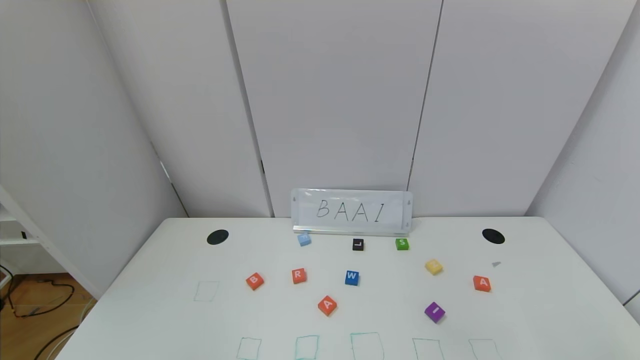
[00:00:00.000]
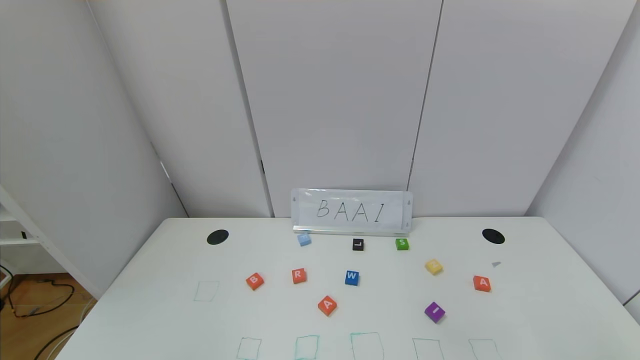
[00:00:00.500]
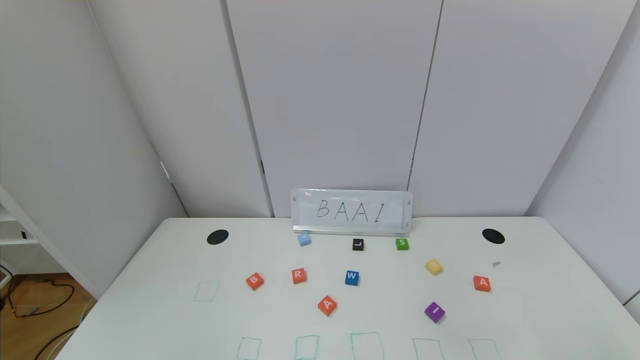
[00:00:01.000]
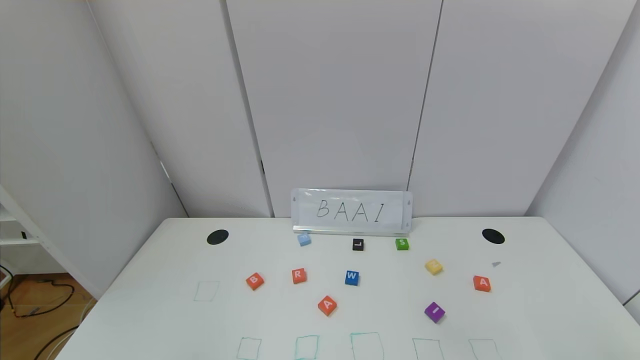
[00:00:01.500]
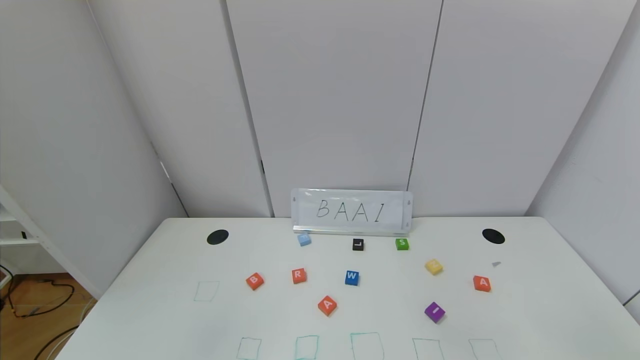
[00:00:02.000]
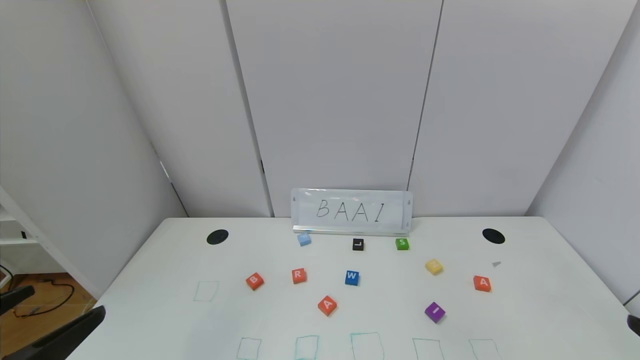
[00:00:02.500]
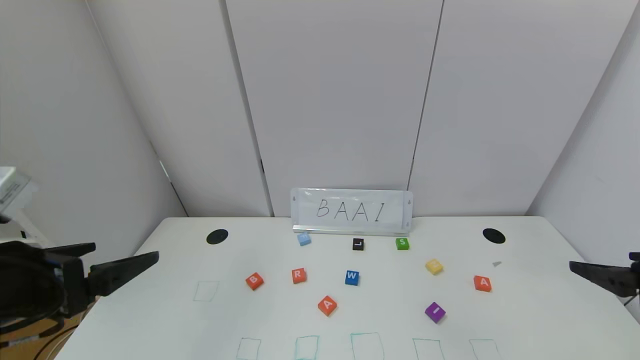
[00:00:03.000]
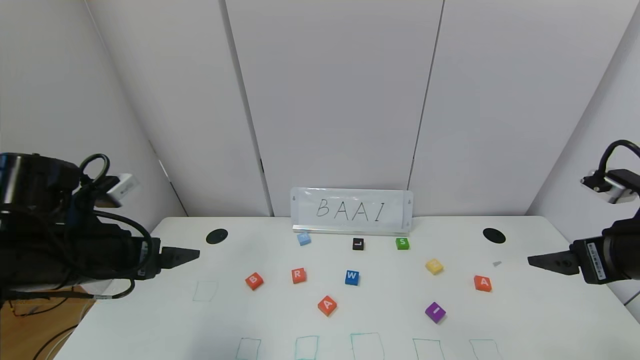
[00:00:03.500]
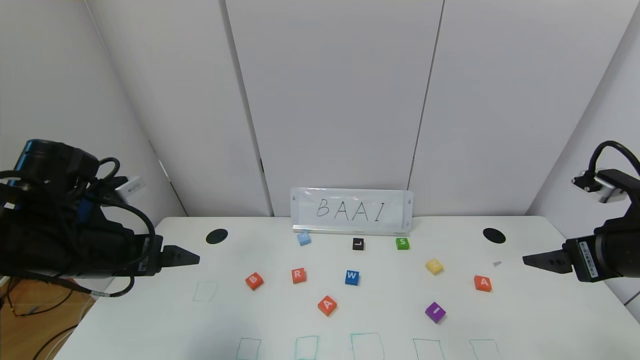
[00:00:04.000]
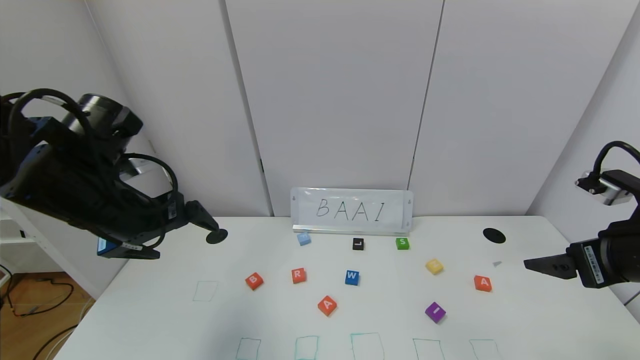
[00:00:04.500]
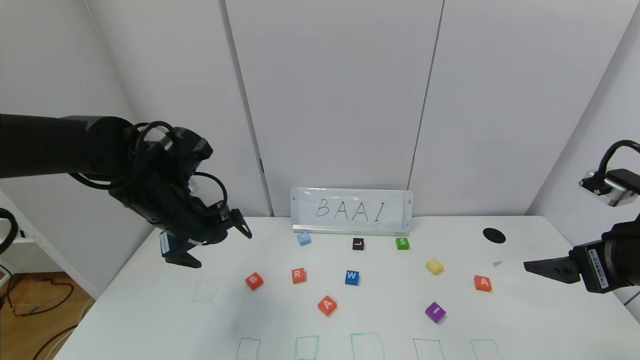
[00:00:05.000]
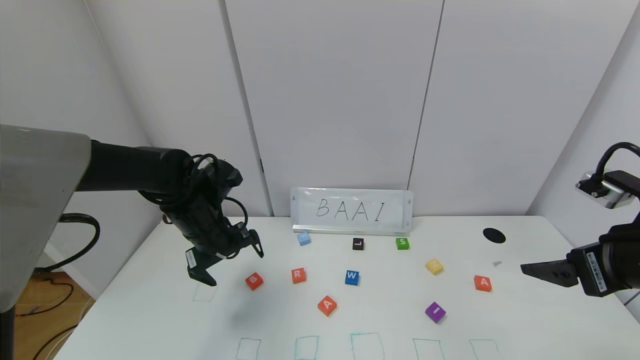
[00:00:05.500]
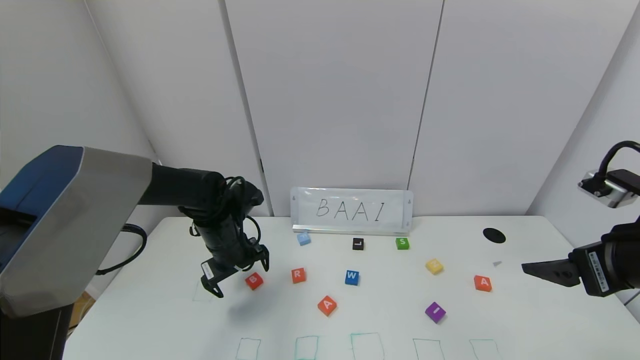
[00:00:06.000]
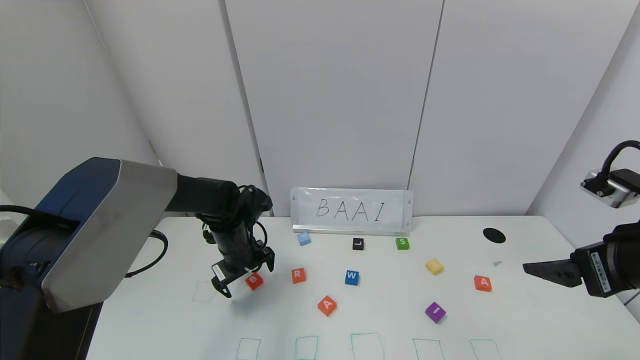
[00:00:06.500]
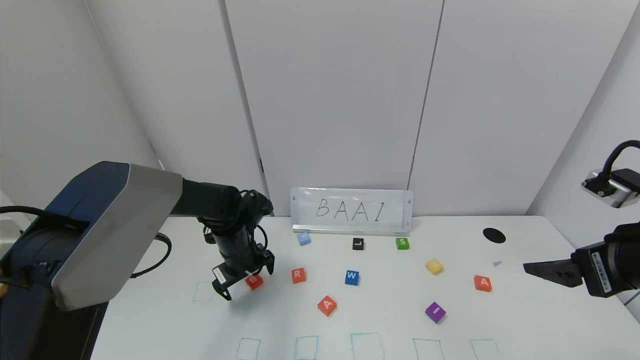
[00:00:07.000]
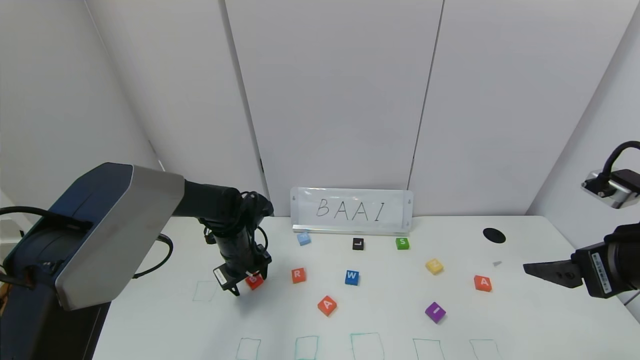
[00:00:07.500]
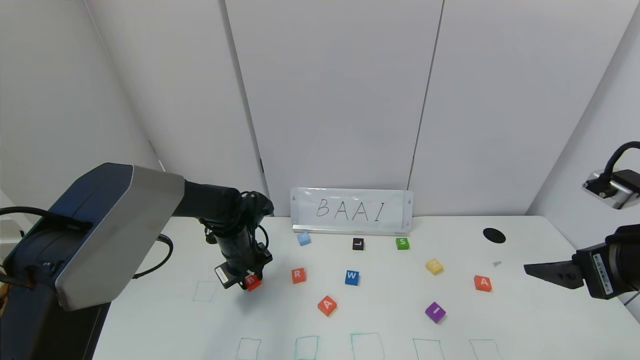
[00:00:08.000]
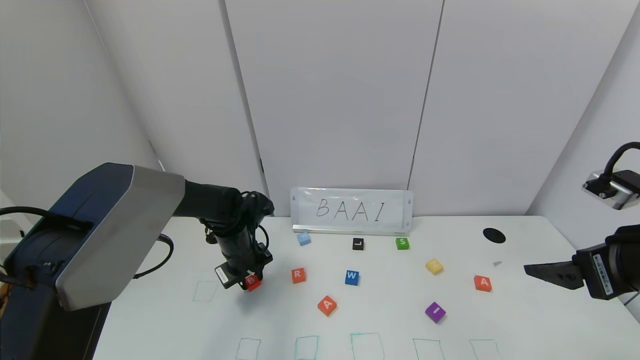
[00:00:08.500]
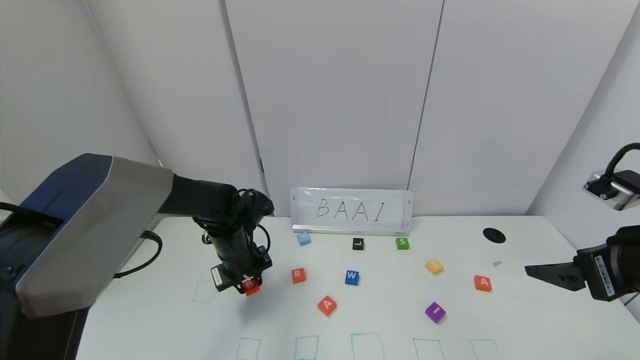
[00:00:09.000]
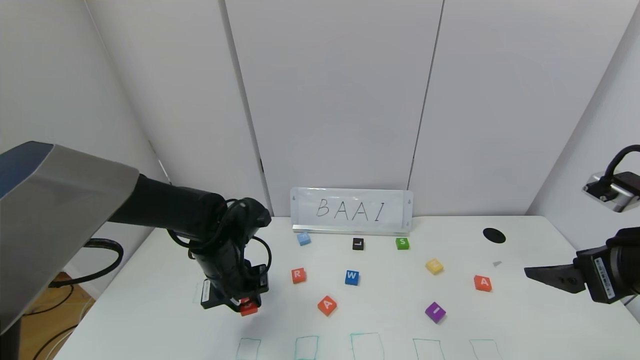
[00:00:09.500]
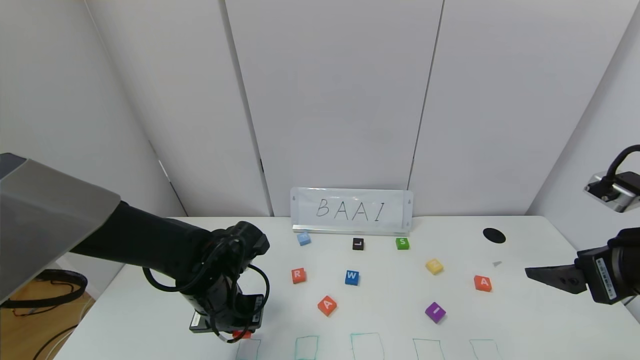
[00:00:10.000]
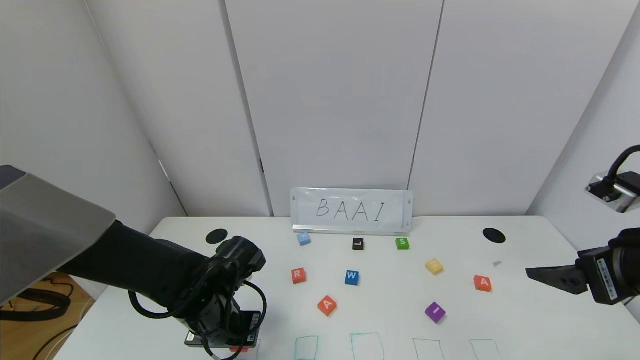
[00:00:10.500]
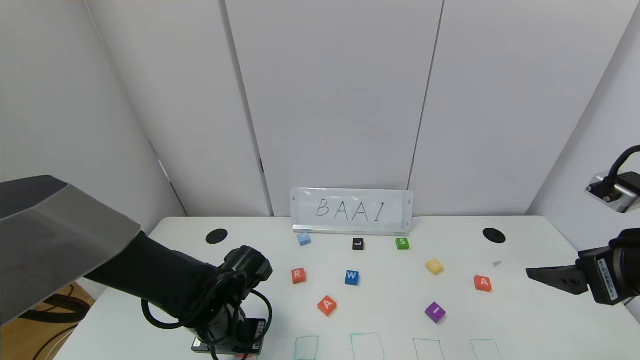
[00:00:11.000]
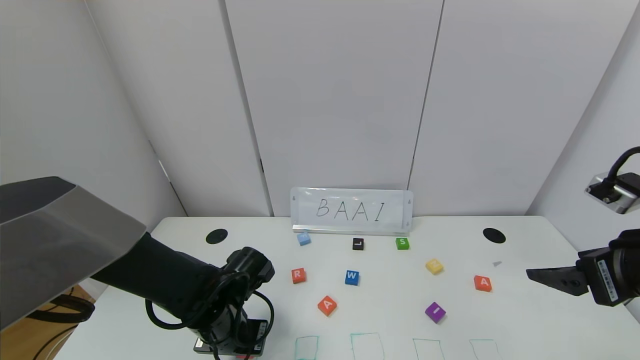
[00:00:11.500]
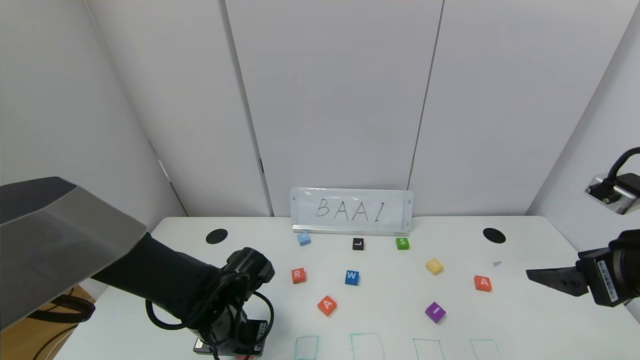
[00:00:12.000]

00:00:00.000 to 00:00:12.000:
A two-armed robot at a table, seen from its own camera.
Task of the whole recording: use the gripper to find blocks with the letters b, a, a, and i on the table and arrange them into BAAI, then find r and N and turn the arranged baai into brian.
00:00:02.000 to 00:00:04.000: The two grippers go roughly 25 cm forward.
00:00:04.000 to 00:00:06.000: The left gripper shifts about 20 cm forward, downward and to the right.
00:00:06.000 to 00:00:08.000: The left gripper closes.
00:00:08.000 to 00:00:10.000: The left gripper moves backward, approximately 15 cm.
00:00:10.000 to 00:00:12.000: There are only small adjustments of the grippers.

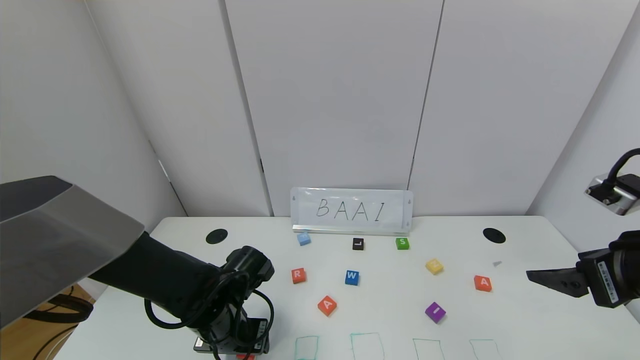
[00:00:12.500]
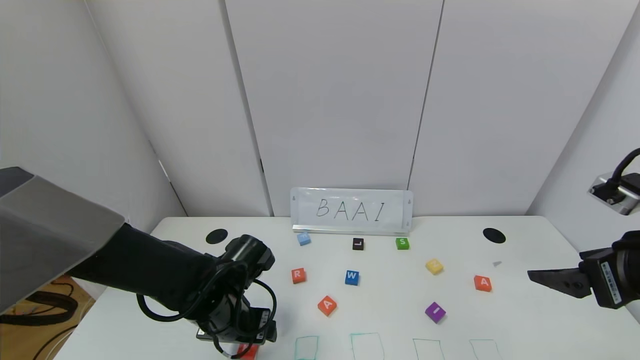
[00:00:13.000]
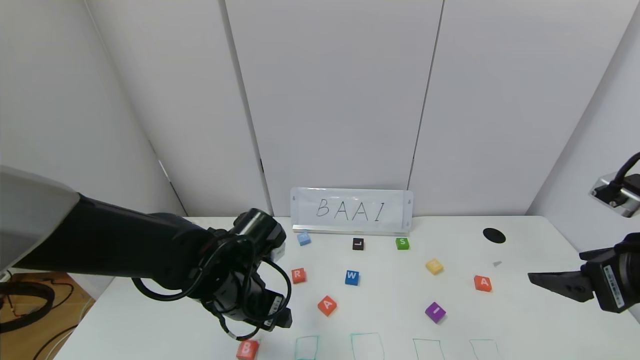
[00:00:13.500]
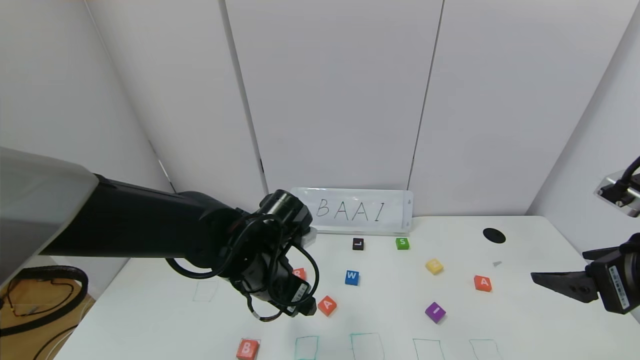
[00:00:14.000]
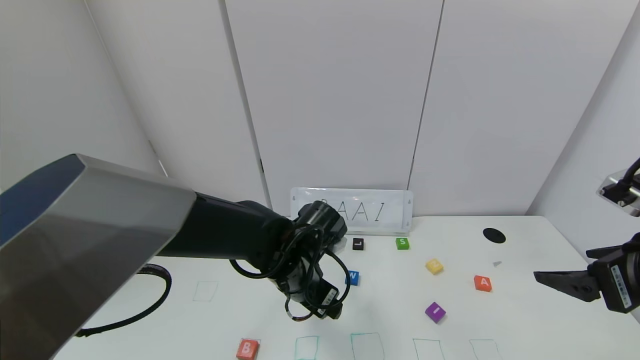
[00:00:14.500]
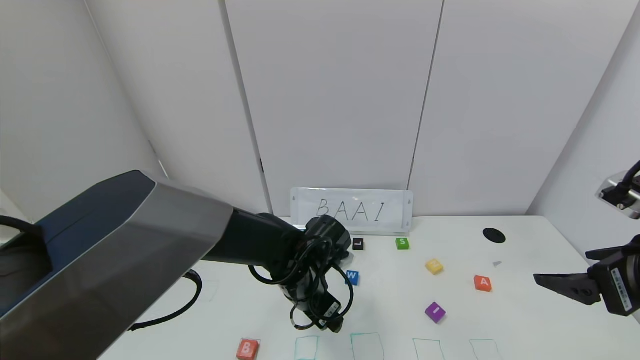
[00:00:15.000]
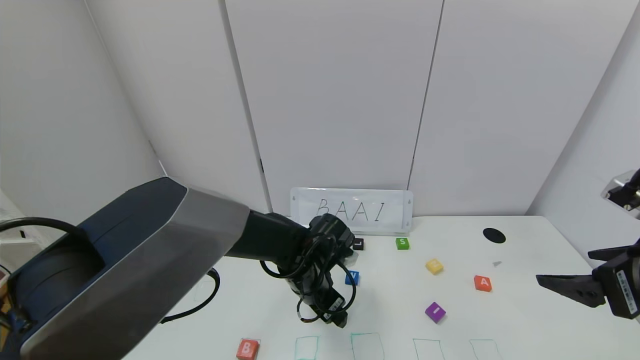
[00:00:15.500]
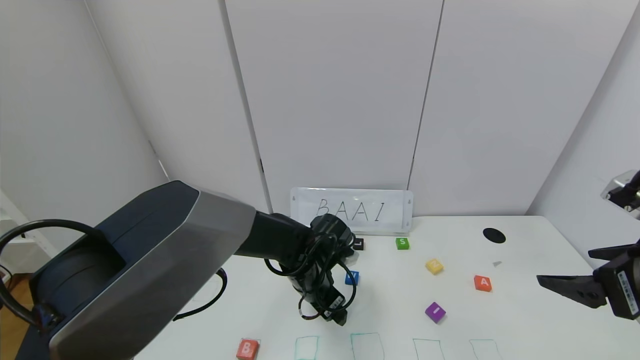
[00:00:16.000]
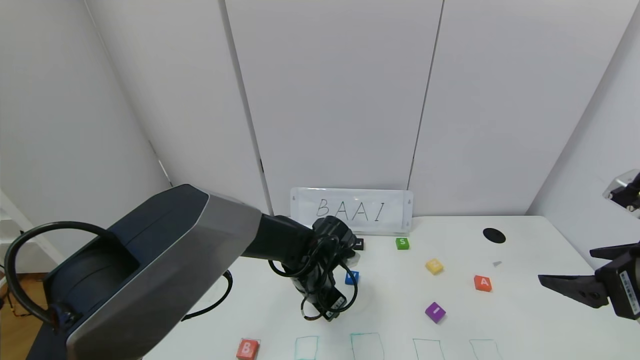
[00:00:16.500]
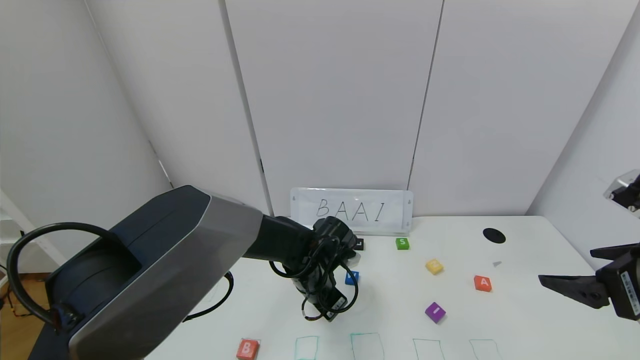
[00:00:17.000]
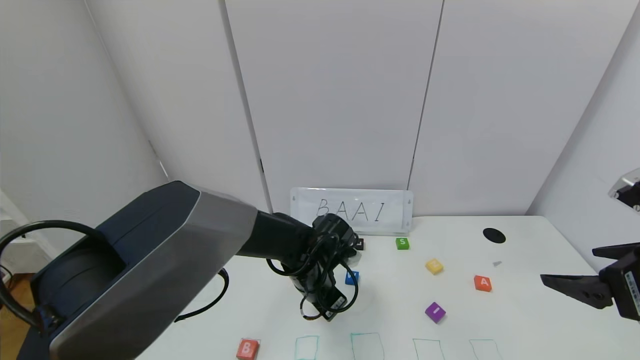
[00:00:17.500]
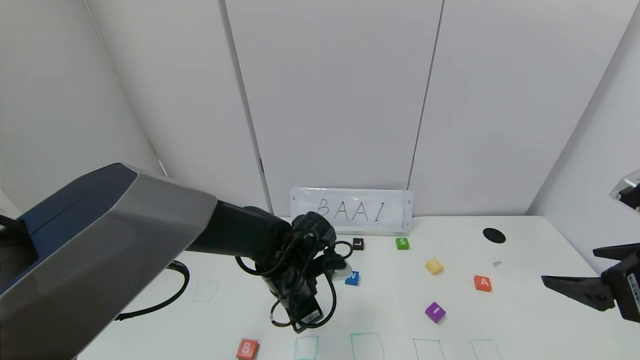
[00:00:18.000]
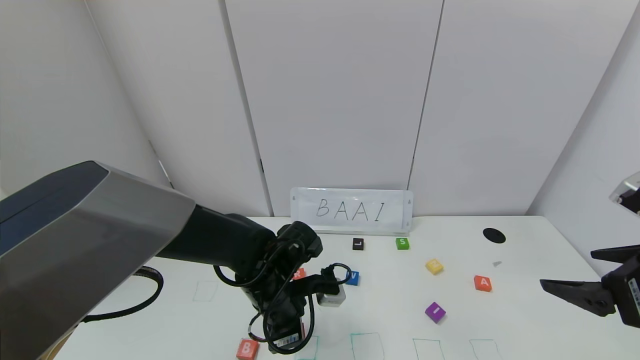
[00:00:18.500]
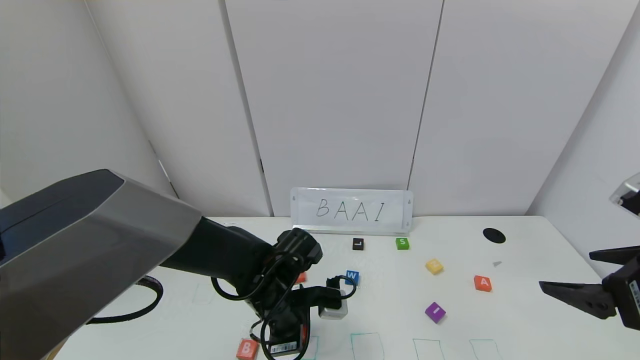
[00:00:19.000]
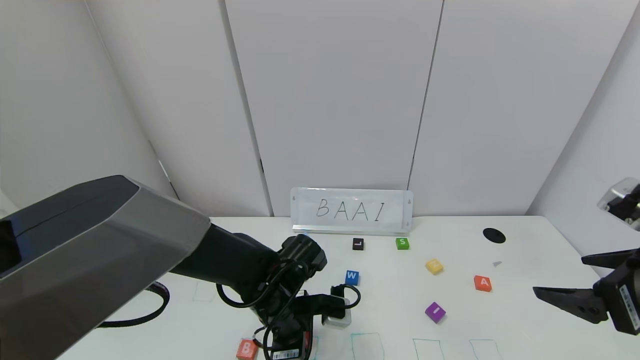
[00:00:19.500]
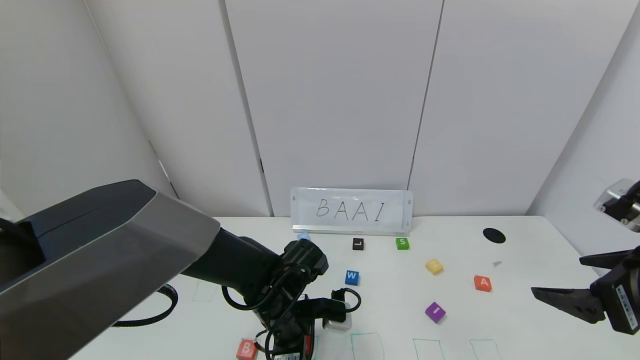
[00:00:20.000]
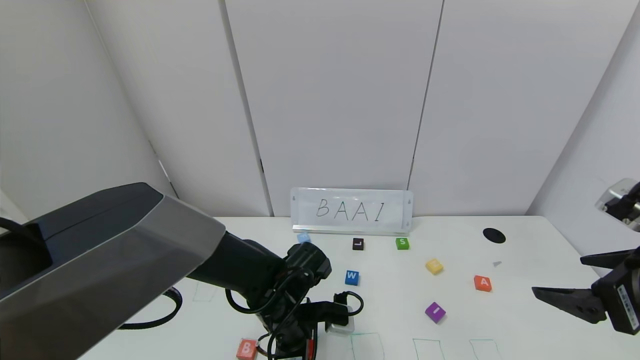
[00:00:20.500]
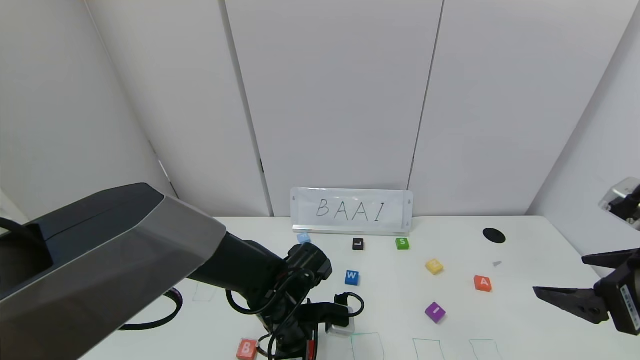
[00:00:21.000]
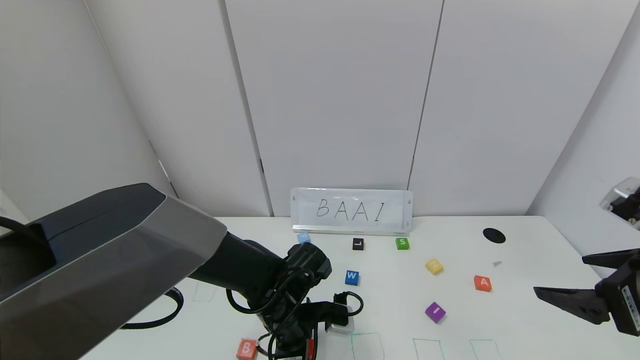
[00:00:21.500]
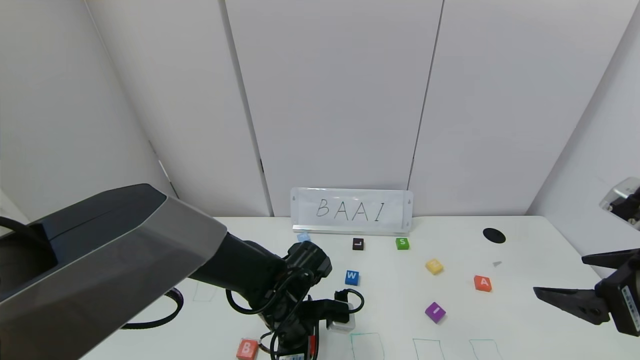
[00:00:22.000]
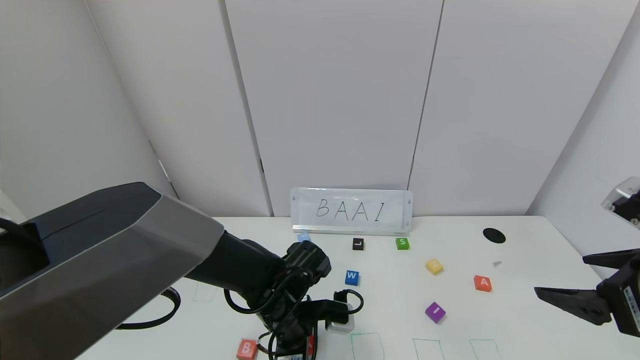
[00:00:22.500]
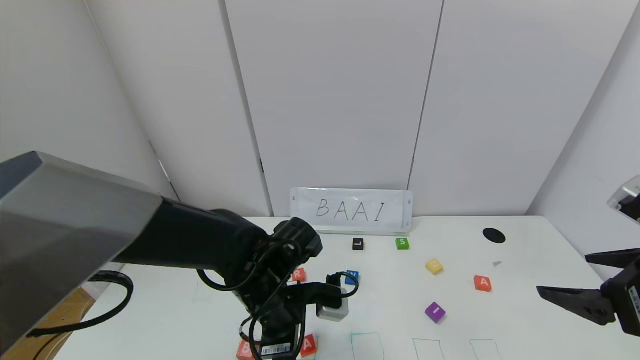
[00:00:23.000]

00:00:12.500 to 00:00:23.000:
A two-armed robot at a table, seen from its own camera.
Task of the whole recording: use the gripper to find blocks with the letters b, a, a, and i on the table and arrange them into BAAI, then find r and N and turn the arranged baai into brian.
Step, 00:00:12.500 to 00:00:22.000: Place the first block A in the second location.
00:00:12.500 to 00:00:14.500: The left gripper shifts about 10 cm to the right and upward.
00:00:14.500 to 00:00:16.500: The left gripper is displaced downward by roughly 5 cm, and closes up.
00:00:16.500 to 00:00:19.000: The left gripper travels backward and to the left by about 5 cm.
00:00:19.000 to 00:00:21.000: The grippers move only a little.
00:00:21.000 to 00:00:23.000: The left gripper heads upward, covering about 5 cm, and opens its fingers.
